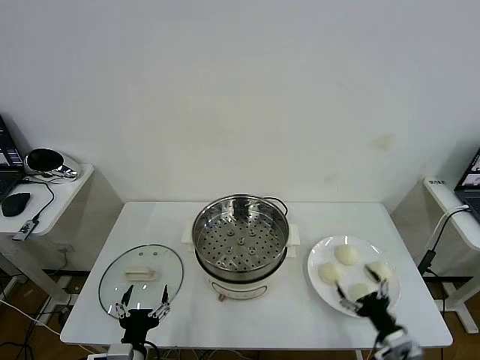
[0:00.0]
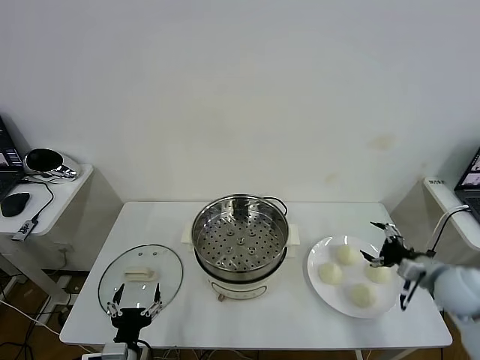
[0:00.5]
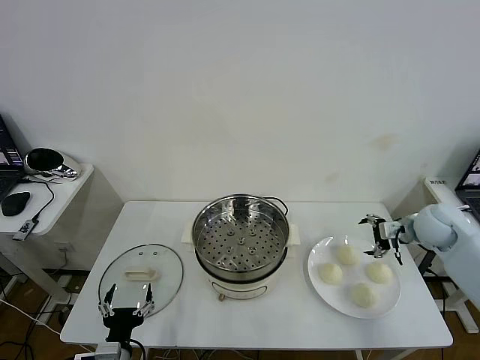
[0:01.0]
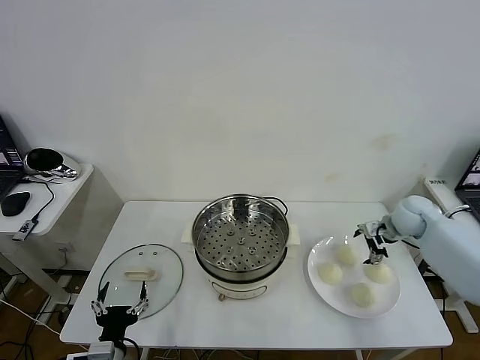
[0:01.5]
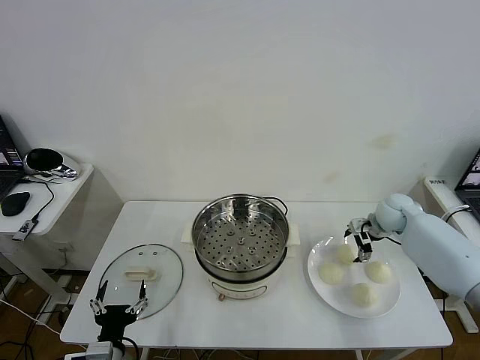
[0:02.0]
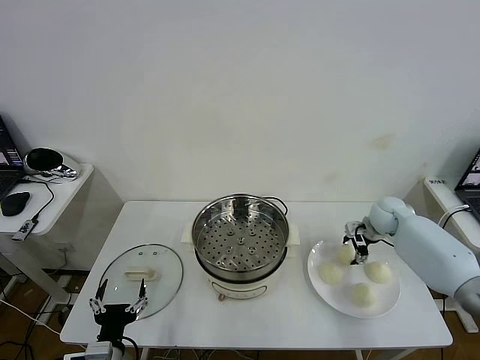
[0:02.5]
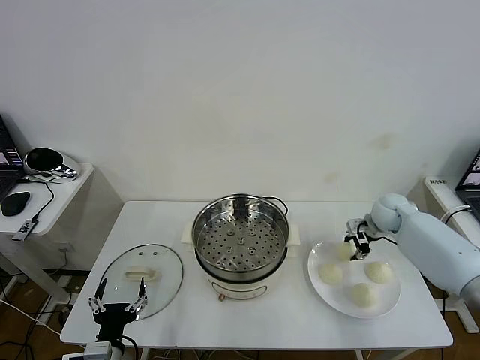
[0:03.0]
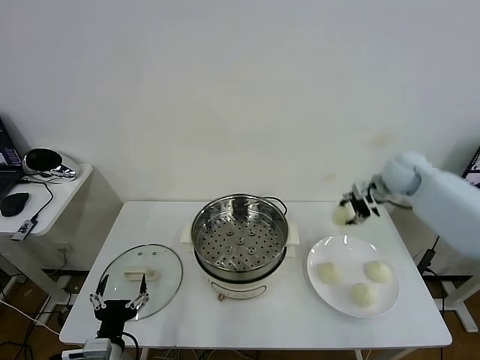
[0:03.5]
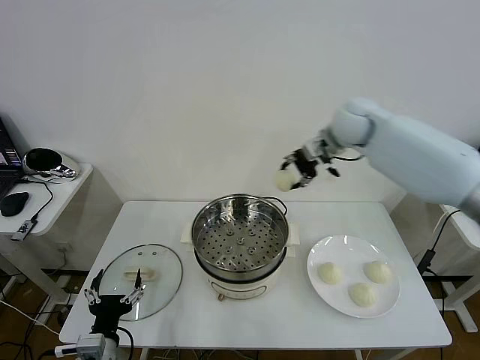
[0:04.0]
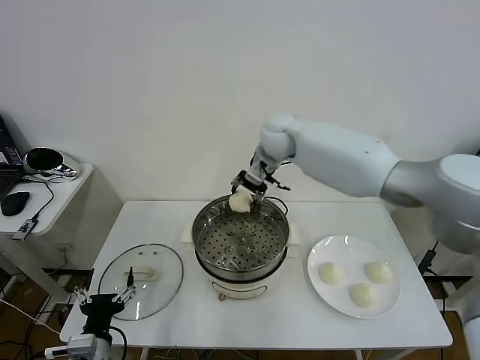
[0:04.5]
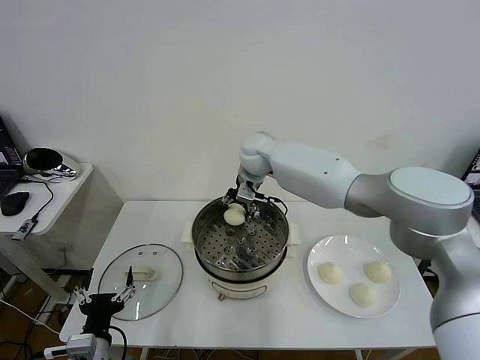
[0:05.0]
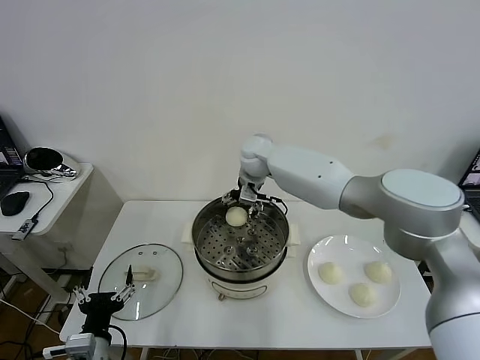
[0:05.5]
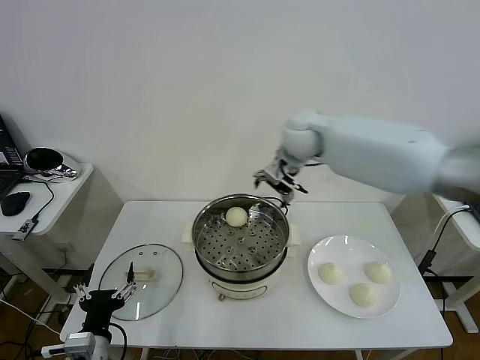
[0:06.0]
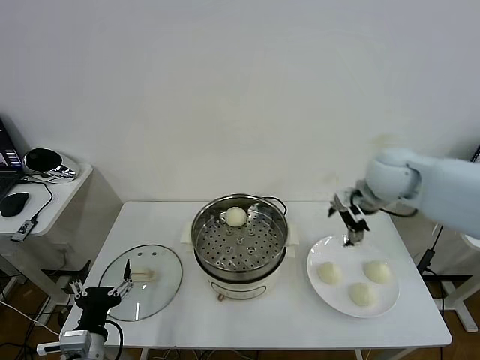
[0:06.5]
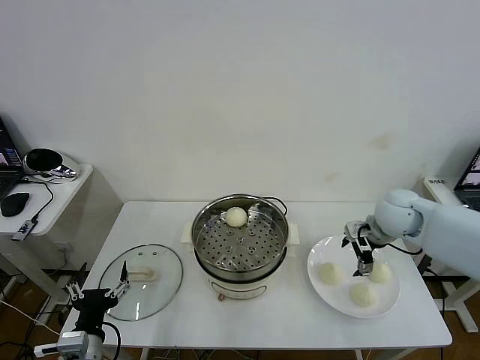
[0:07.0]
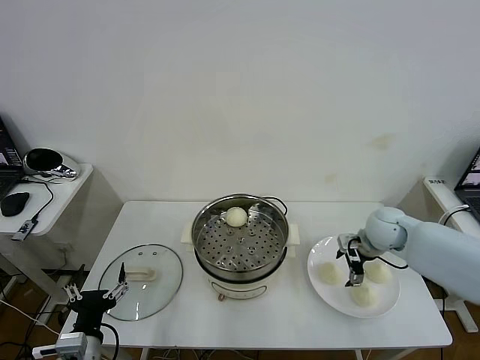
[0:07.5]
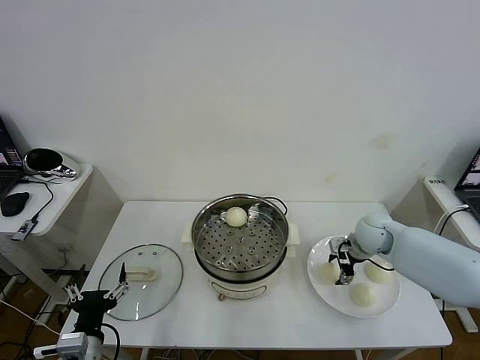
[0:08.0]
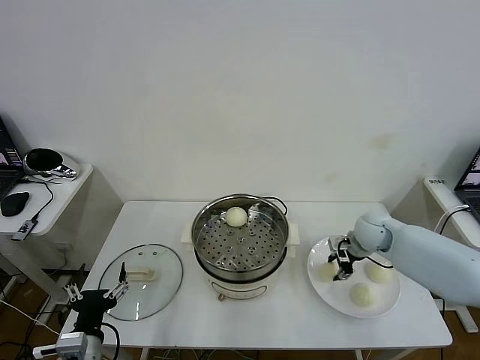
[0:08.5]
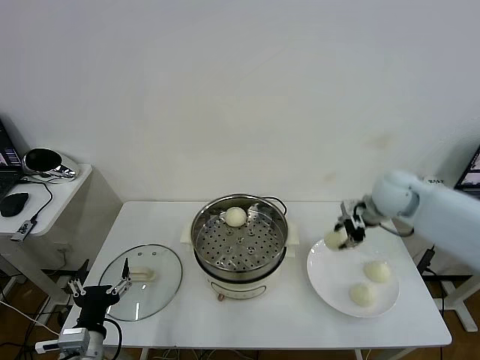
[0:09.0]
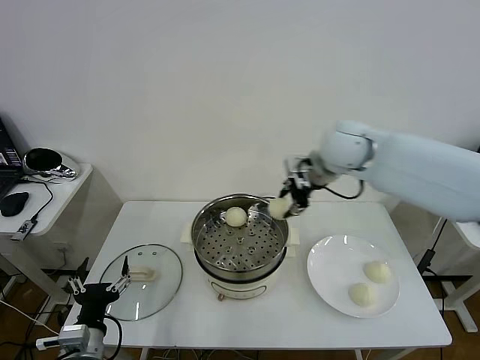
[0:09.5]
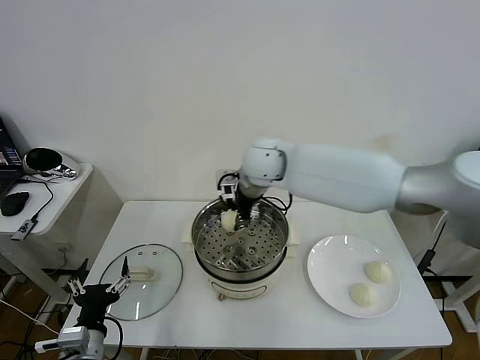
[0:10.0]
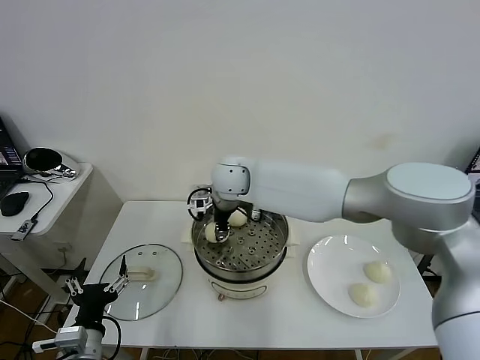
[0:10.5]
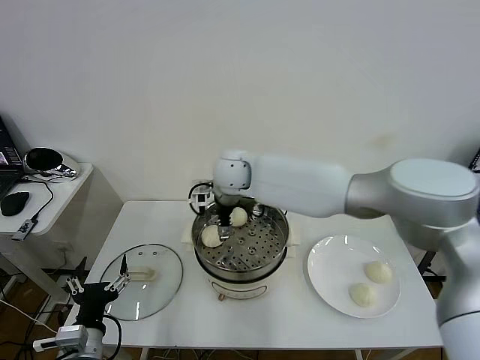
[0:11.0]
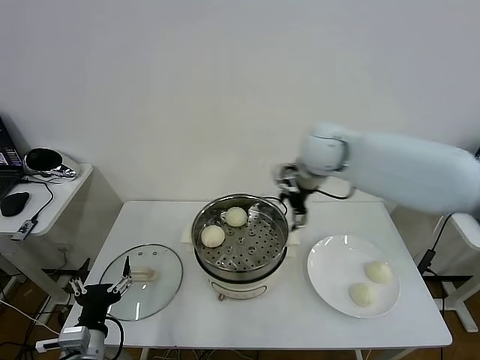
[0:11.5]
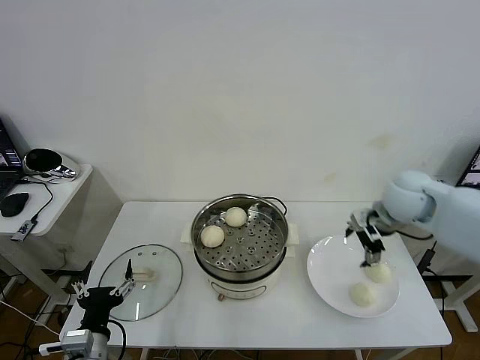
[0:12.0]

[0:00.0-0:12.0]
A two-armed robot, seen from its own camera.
Task of the whole recording: take steamed baozi put them in steamer then cover it.
Step, 0:00.0 to 0:02.5: Grasp the baozi in the plate with right gripper.
Step, 0:03.0 to 0:05.5: Place the baozi on the steamer with right gripper.
Step, 0:06.0 to 0:08.0: Grasp the baozi in the plate with right gripper.
Step, 0:09.0 to 0:10.5: Place the baozi on the steamer with right gripper.
0:02.0 to 0:04.0: The right gripper heads upward and to the left, covering some 30 cm, and closes its fingers.
0:04.0 to 0:06.0: The right gripper moves backward, about 5 cm, moves approximately 15 cm to the left and comes back, and opens its fingers.
0:06.0 to 0:08.0: The right gripper travels downward and to the right by some 25 cm, and closes.
0:08.0 to 0:10.0: The right gripper is displaced to the left and upward by roughly 35 cm, and closes up.
0:10.0 to 0:12.0: The right gripper is displaced to the right by about 30 cm, and opens.

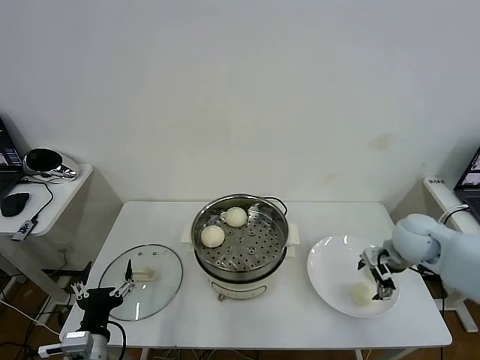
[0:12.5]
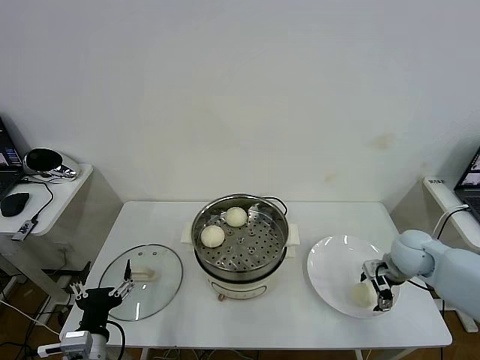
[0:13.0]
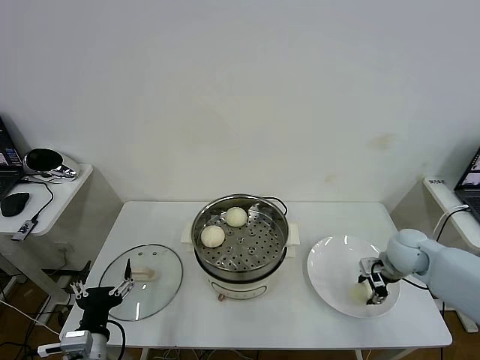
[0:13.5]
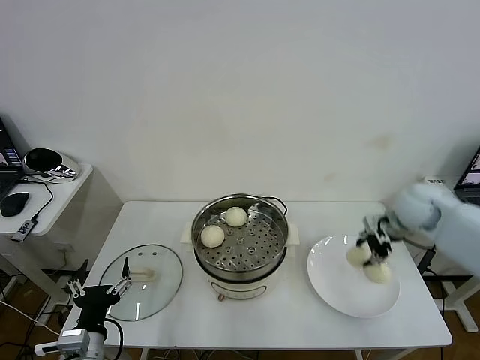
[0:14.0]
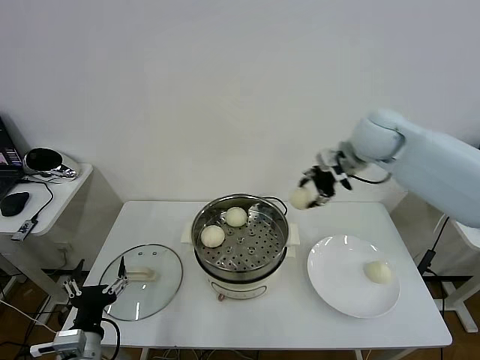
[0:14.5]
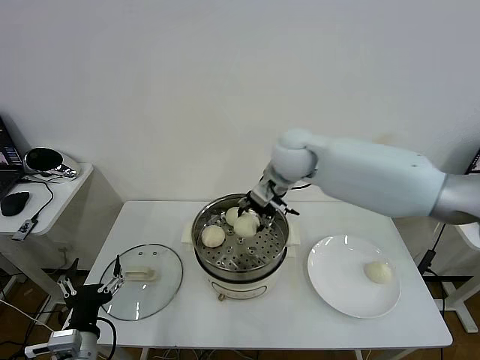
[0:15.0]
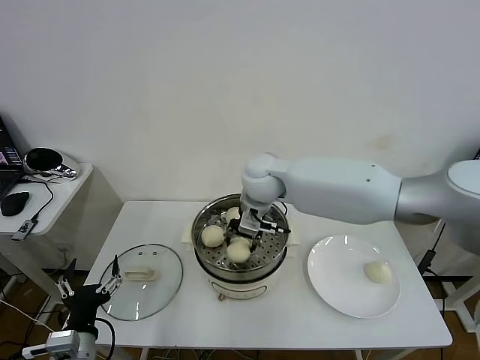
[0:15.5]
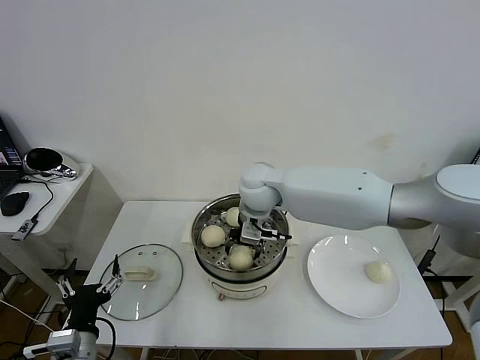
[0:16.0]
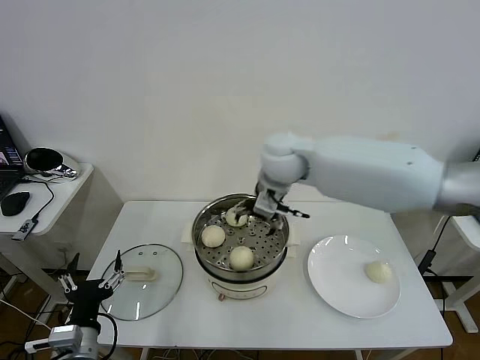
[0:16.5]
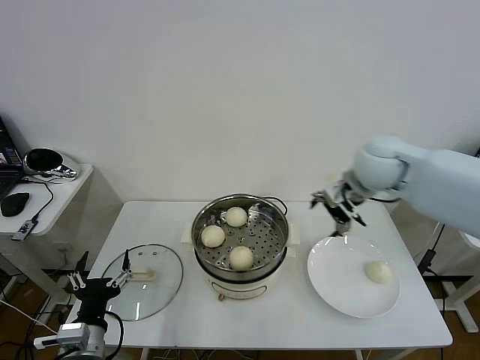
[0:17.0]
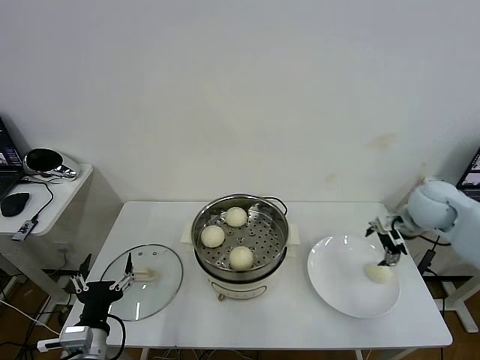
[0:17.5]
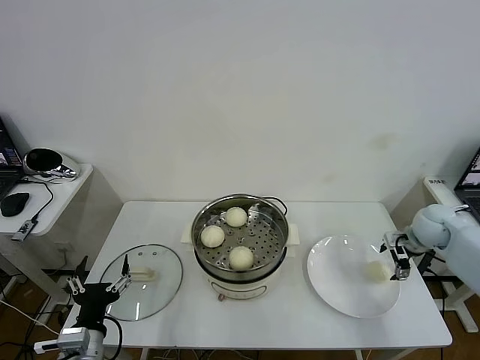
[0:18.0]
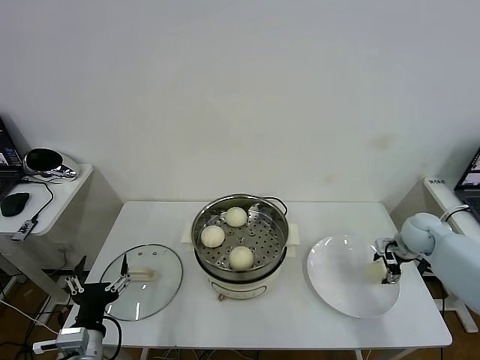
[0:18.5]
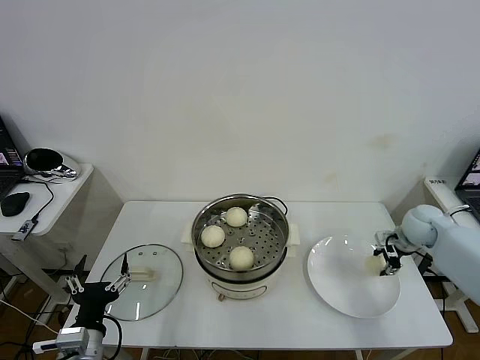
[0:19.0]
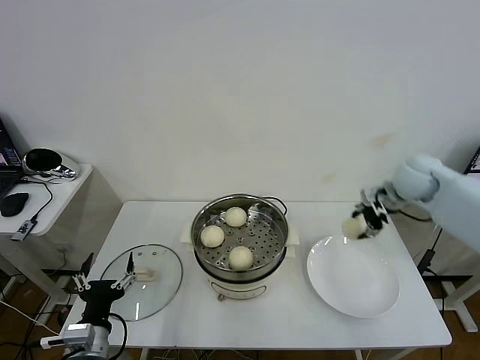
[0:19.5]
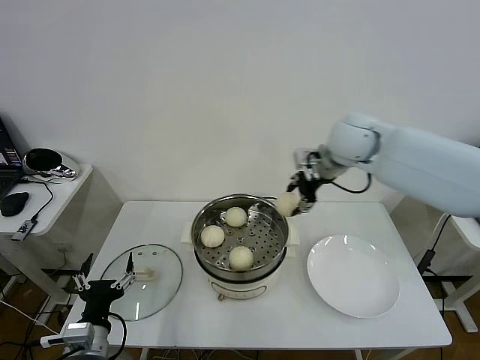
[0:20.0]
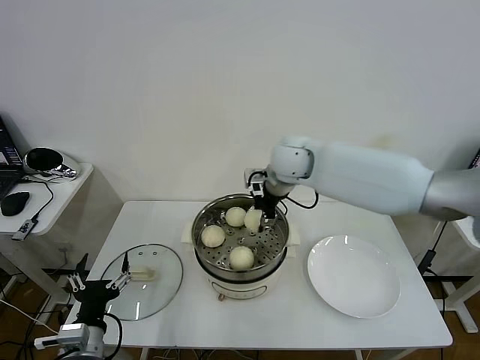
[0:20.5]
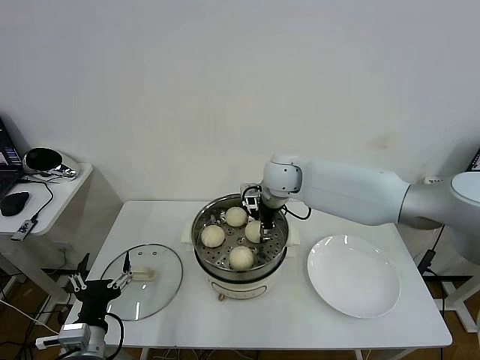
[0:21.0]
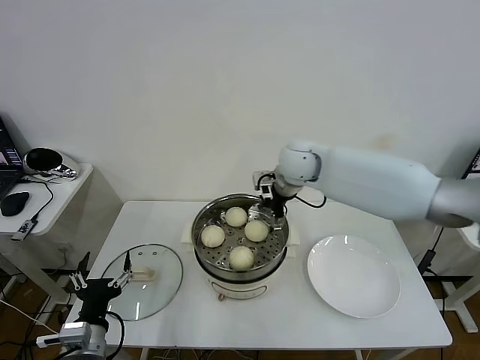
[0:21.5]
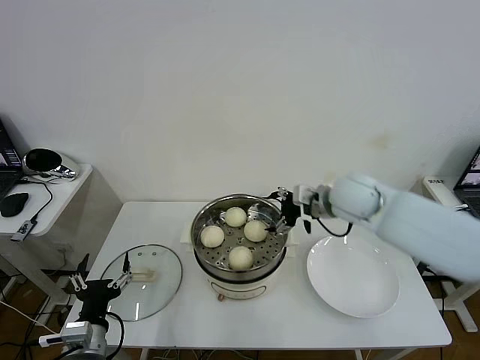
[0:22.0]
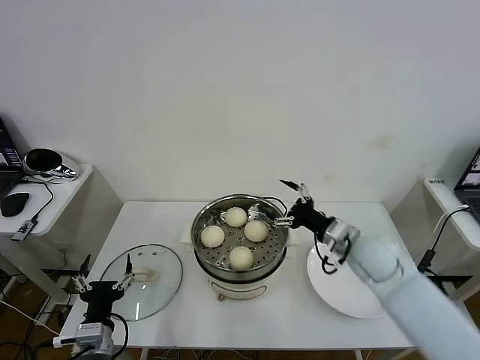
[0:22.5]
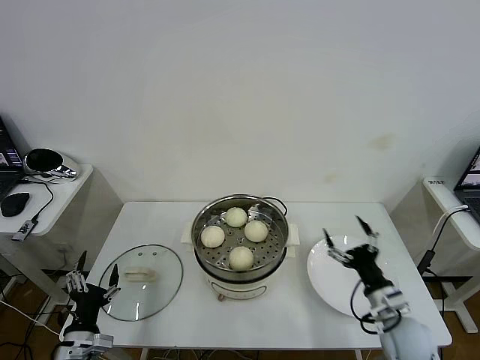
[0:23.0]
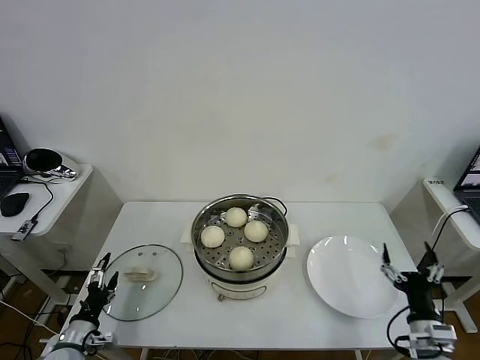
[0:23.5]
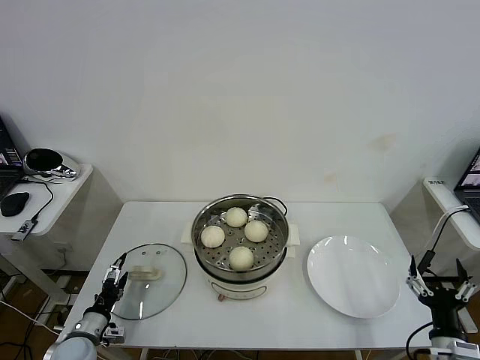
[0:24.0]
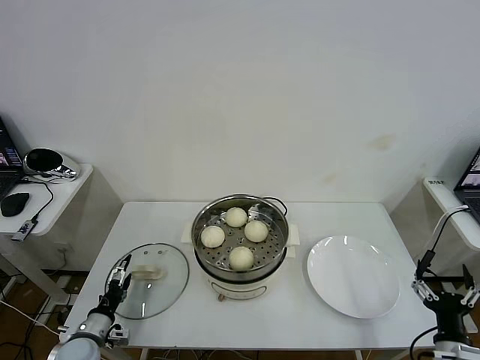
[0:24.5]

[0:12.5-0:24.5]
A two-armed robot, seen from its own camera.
Task of the whole recording: take steamed baozi put them in steamer then cover it.
Step, 0:14.0 to 0:16.0: Place the baozi on the steamer with right gripper.
Step, 0:16.5 to 0:18.5: Grasp the baozi in the plate with right gripper.
Step, 0:19.0 to 0:21.0: Place the baozi on the steamer with right gripper.
0:12.5 to 0:14.5: The right gripper goes roughly 25 cm upward, to the left and forward, and closes its fingers.
0:14.5 to 0:16.5: The right gripper goes roughly 15 cm to the left, and opens up.
0:16.5 to 0:18.5: The right gripper goes about 40 cm to the right and downward, and closes up.
0:18.5 to 0:20.5: The right gripper is displaced to the left and upward by roughly 40 cm.
0:20.5 to 0:22.5: The right gripper shifts some 25 cm to the right, backward and downward, and opens its fingers.
0:22.5 to 0:24.5: The left gripper moves downward, to the left and forward, roughly 15 cm. Meanwhile the right gripper shifts roughly 30 cm backward, to the right and downward.

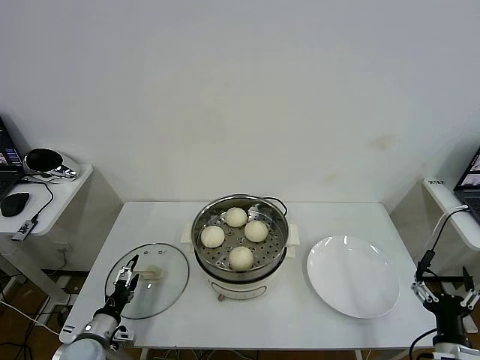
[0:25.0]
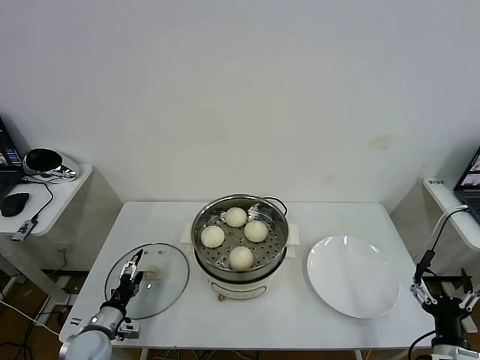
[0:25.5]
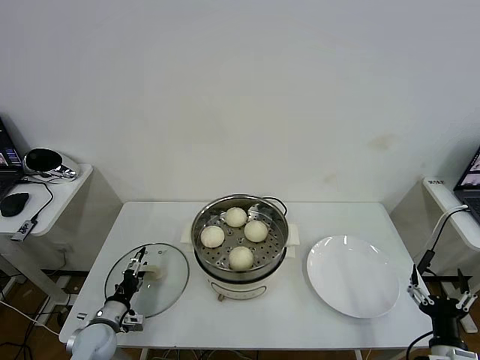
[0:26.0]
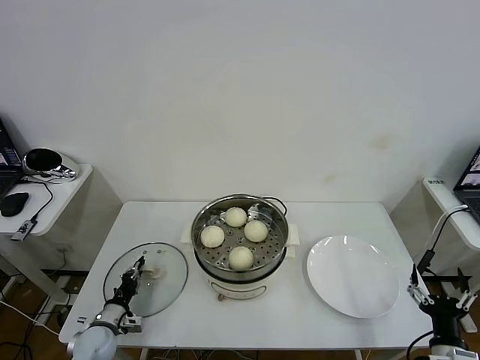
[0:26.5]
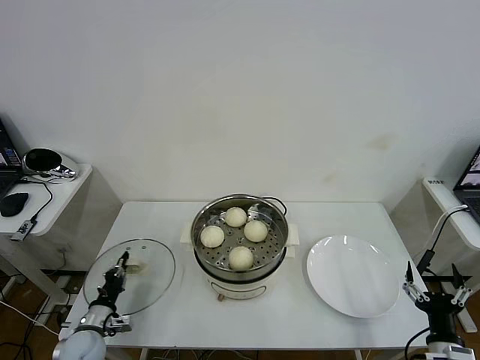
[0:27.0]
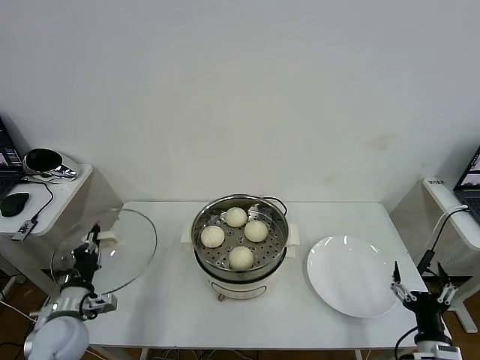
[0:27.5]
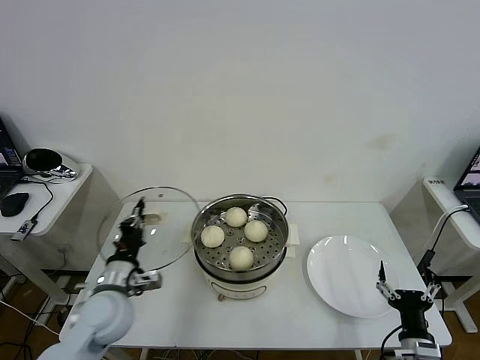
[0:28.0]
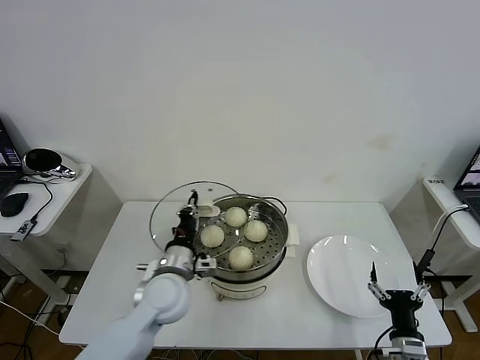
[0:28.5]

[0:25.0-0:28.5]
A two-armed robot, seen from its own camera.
Task of the whole recording: take steamed baozi put them in steamer then cover it.
0:25.0 to 0:27.0: The left gripper closes.
0:27.0 to 0:28.5: The right gripper shifts roughly 5 cm to the left. Meanwhile the left gripper heads to the right and upward, covering about 30 cm.
